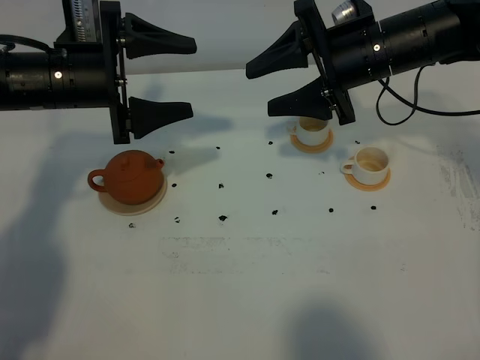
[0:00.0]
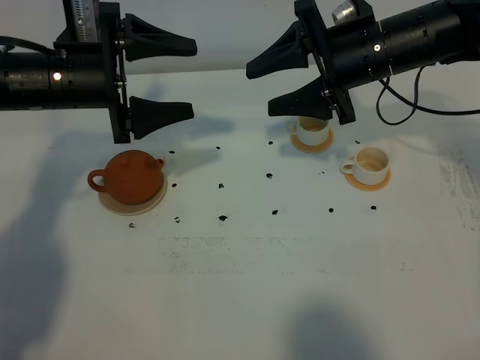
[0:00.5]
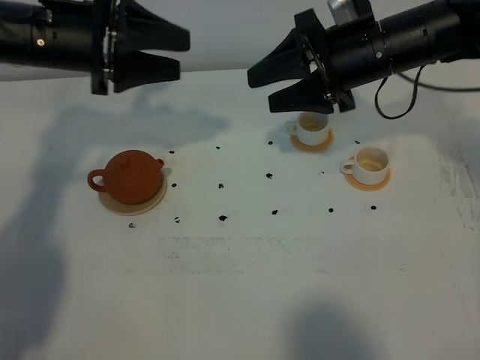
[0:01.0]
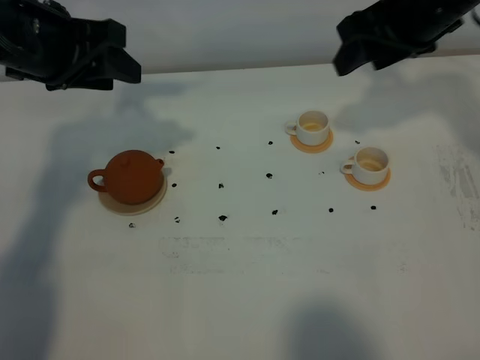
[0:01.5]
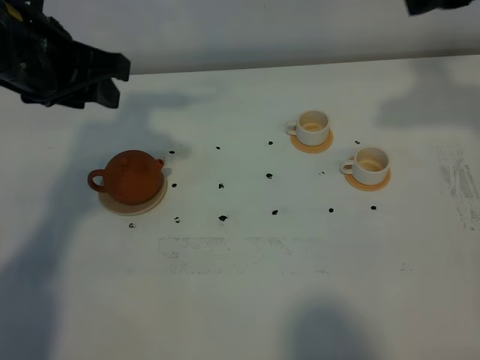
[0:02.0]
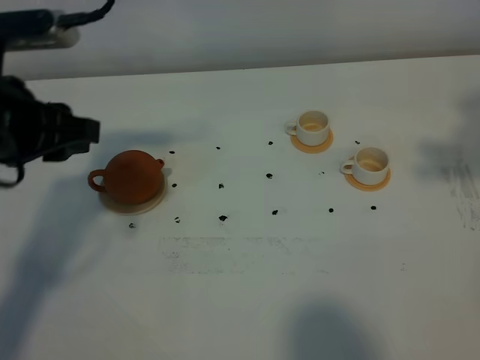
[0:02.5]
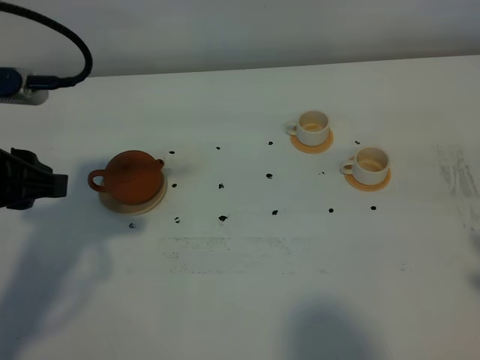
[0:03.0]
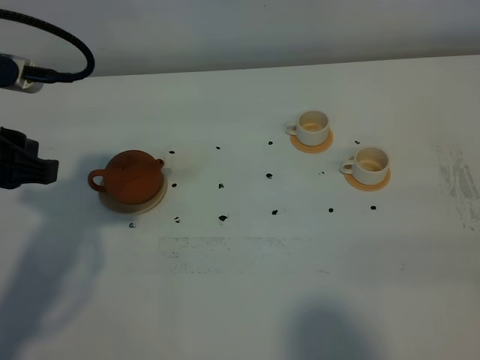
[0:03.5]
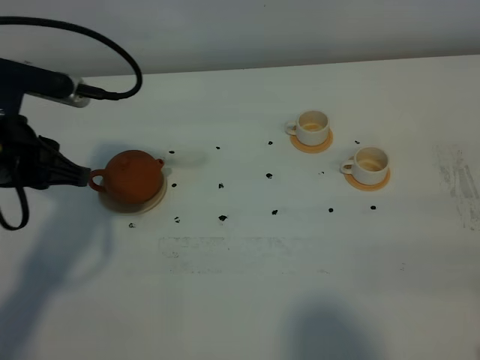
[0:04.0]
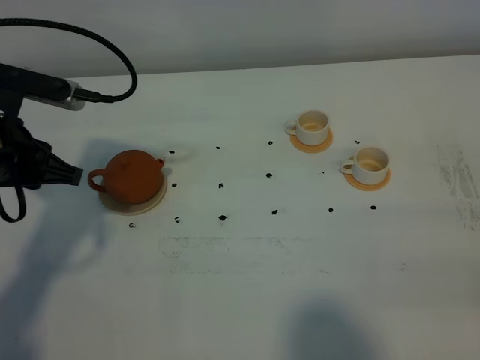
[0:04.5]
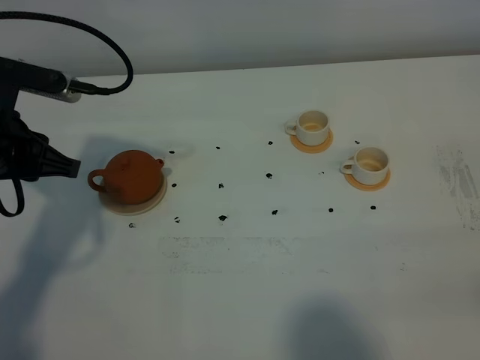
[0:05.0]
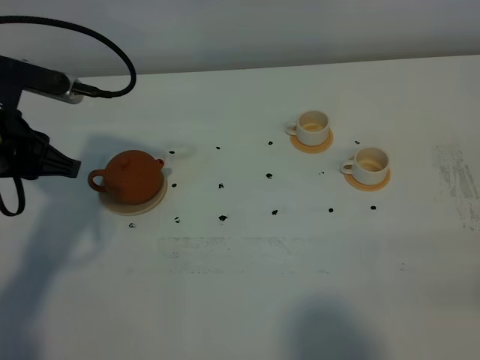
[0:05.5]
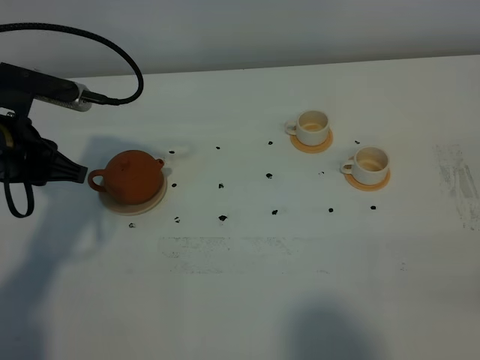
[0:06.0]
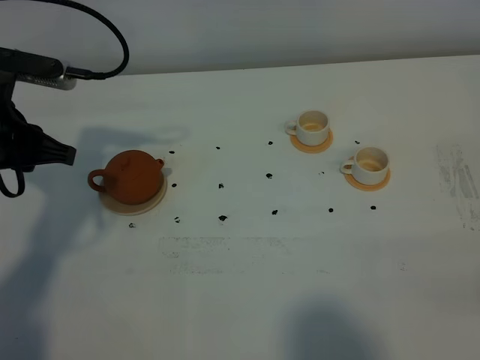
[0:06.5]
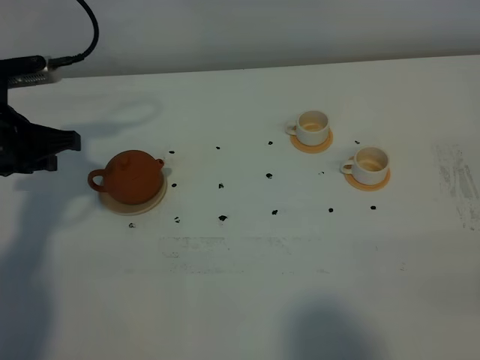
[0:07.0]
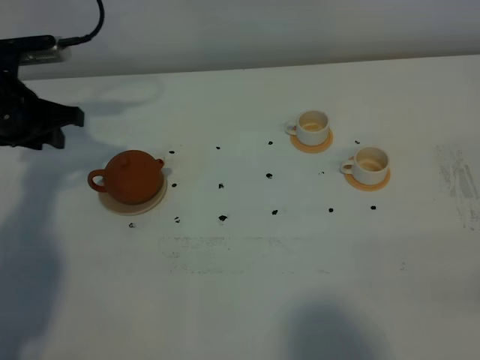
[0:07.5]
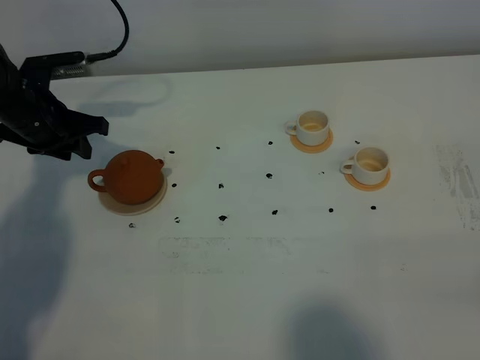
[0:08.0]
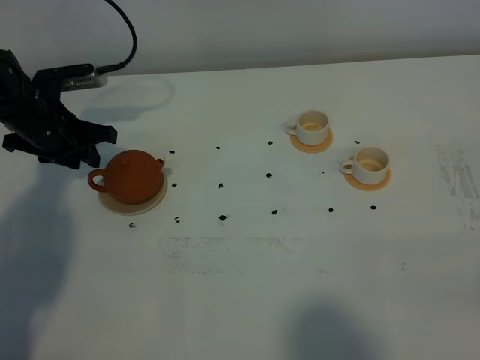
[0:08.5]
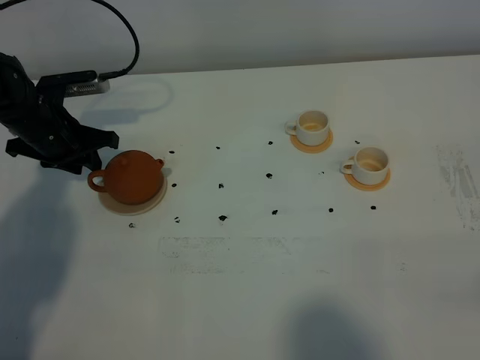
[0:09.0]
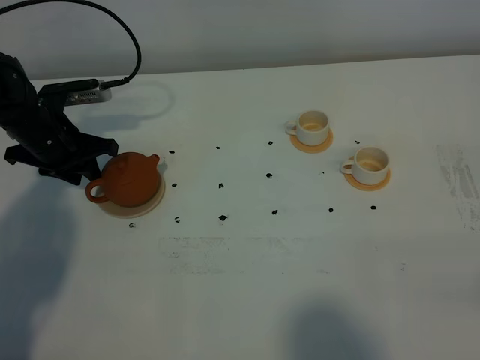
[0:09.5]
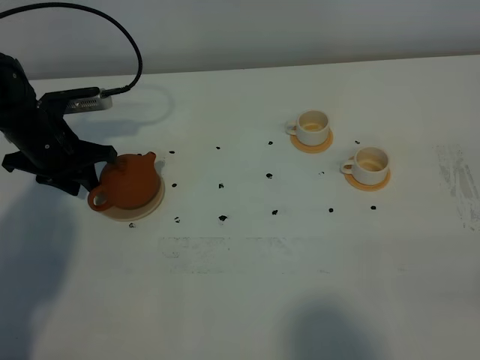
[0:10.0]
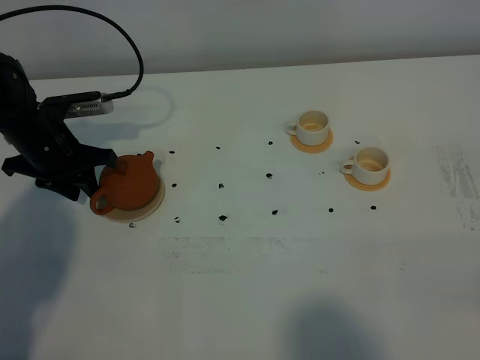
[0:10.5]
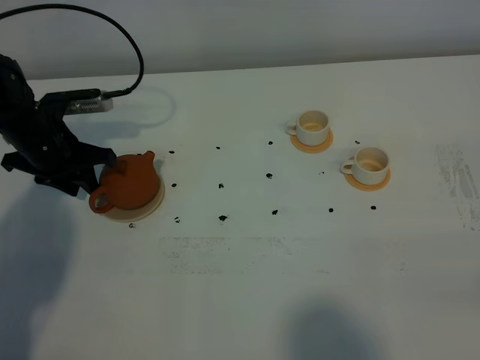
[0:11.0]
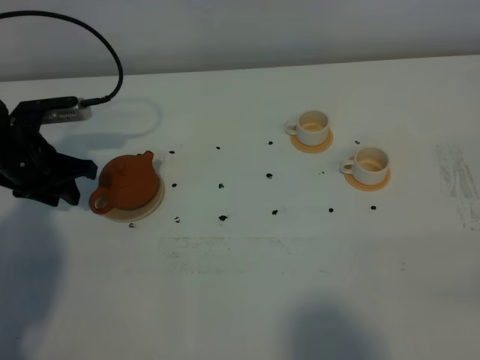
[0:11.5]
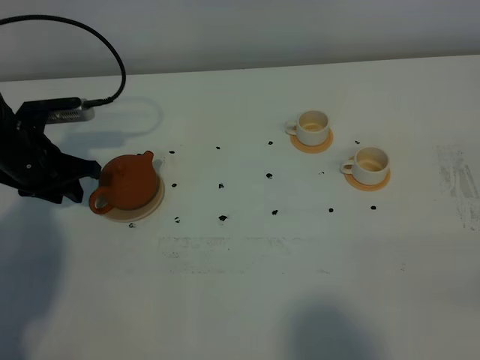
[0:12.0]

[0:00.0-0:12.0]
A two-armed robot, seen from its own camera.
Task of the whole recording: grasp the brown teapot and pour the tea into the two white teacups one by one, put the brown teapot back in its original place.
0.0 to 2.0 s: The right gripper goes some 20 cm upward, to the right and backward, while the left gripper moves upward, approximately 10 cm.
2.0 to 4.0 s: The left gripper is displaced downward and backward by approximately 10 cm. Meanwhile the right gripper is displaced backward and downward by approximately 30 cm.
6.0 to 8.0 s: The left gripper shifts about 15 cm forward and downward.
8.0 to 12.0 s: The grippers make only small movements.

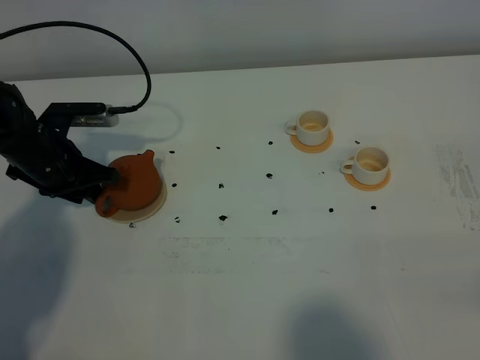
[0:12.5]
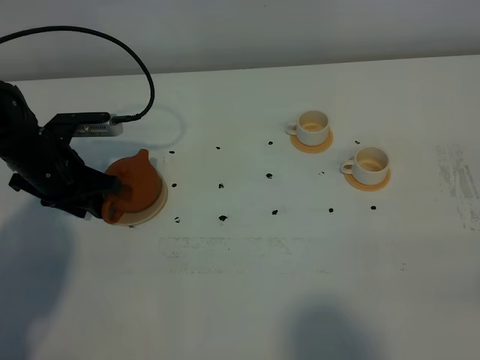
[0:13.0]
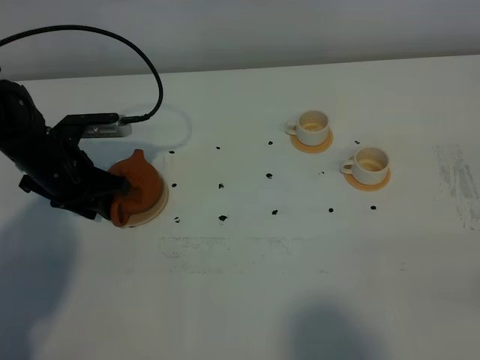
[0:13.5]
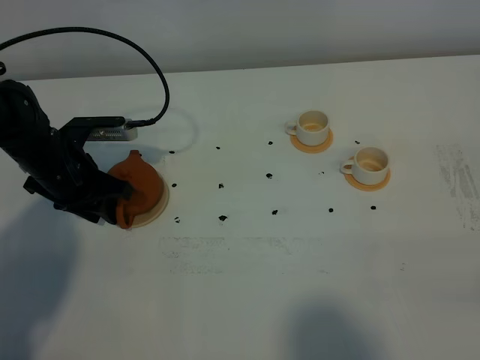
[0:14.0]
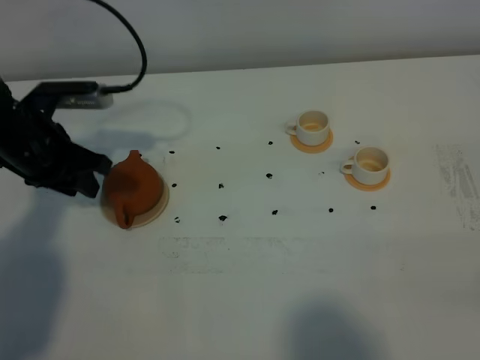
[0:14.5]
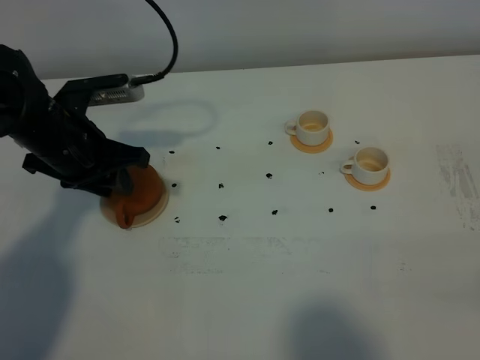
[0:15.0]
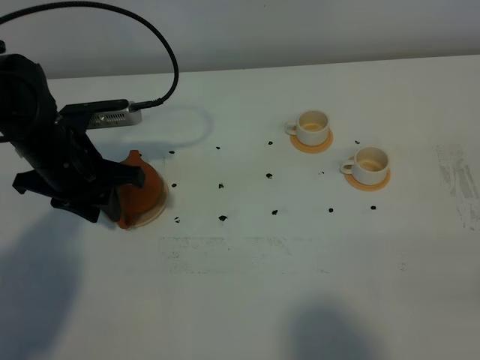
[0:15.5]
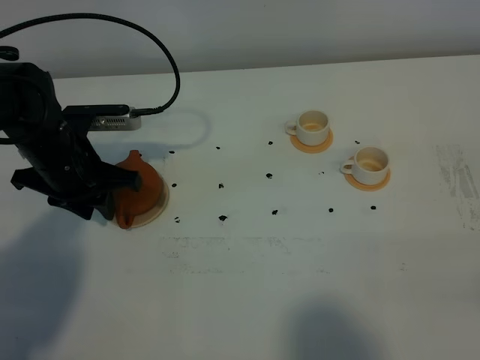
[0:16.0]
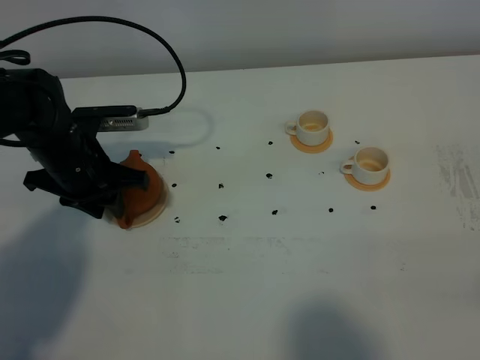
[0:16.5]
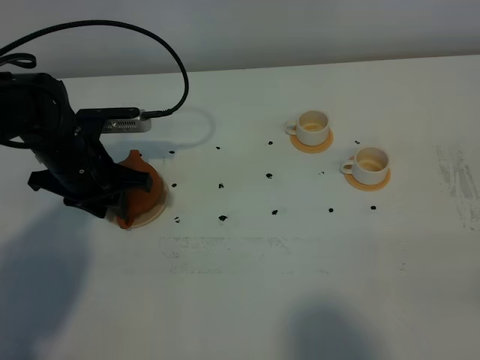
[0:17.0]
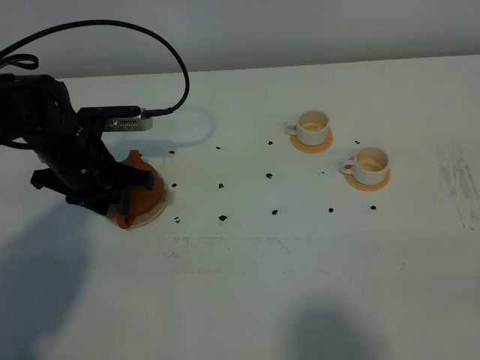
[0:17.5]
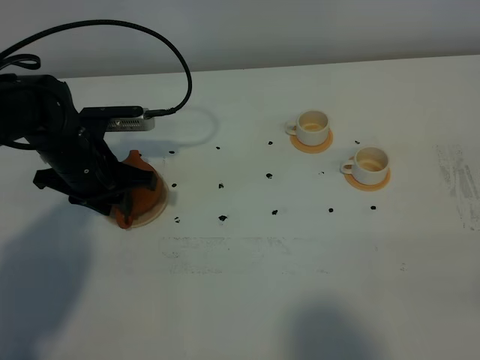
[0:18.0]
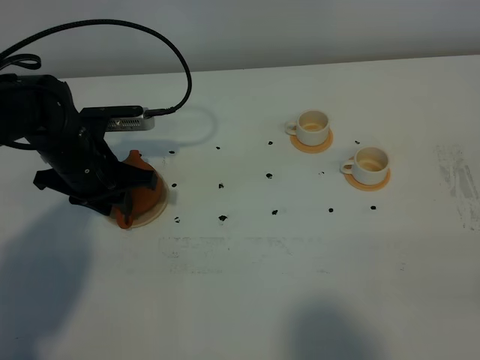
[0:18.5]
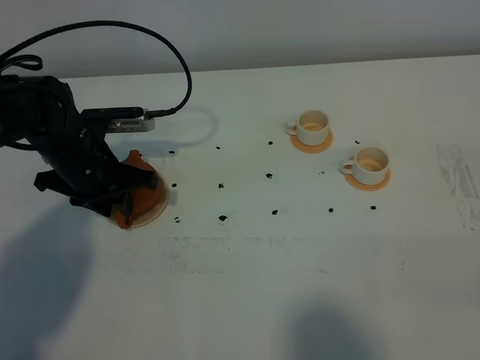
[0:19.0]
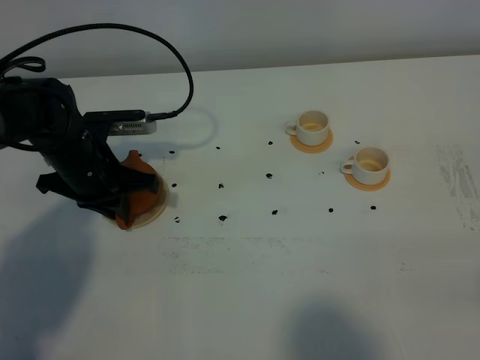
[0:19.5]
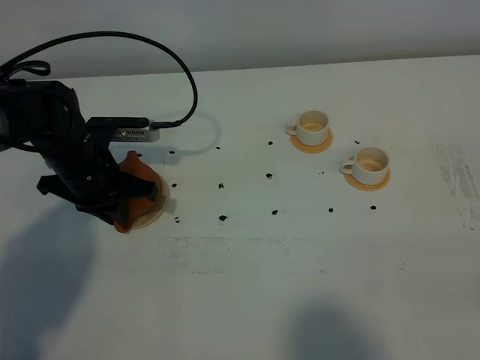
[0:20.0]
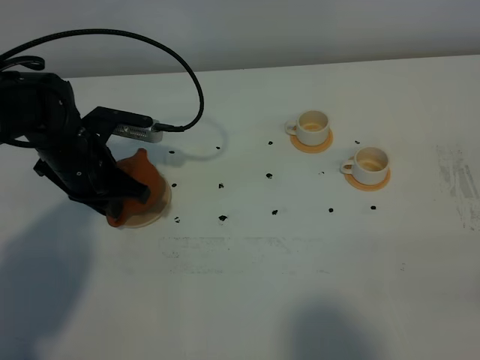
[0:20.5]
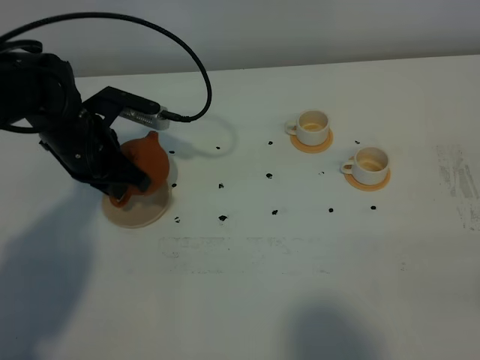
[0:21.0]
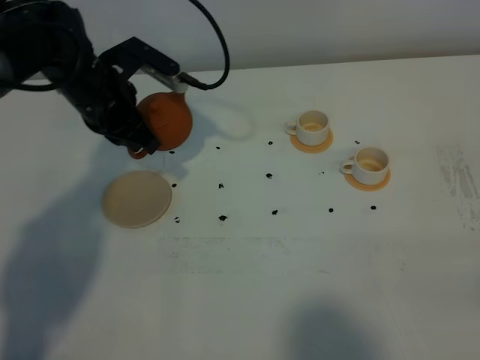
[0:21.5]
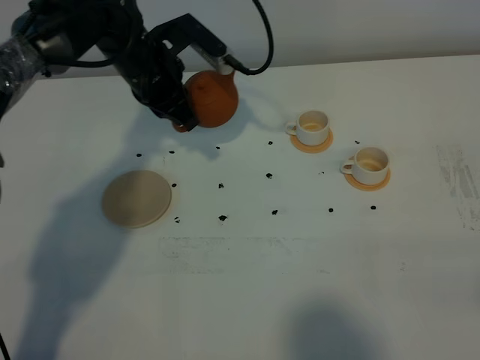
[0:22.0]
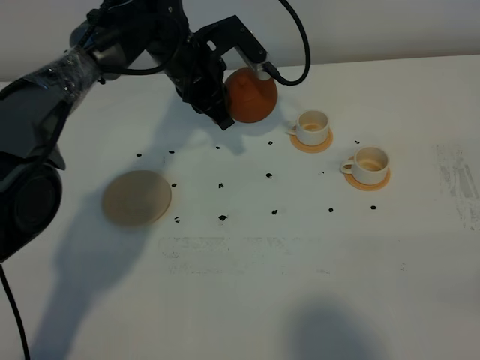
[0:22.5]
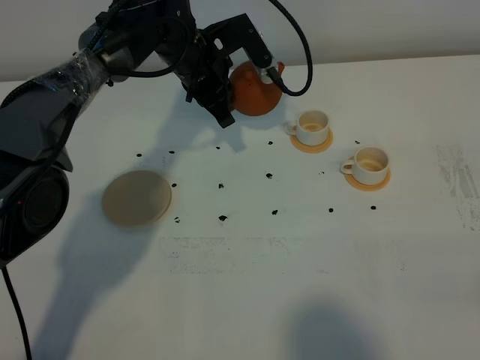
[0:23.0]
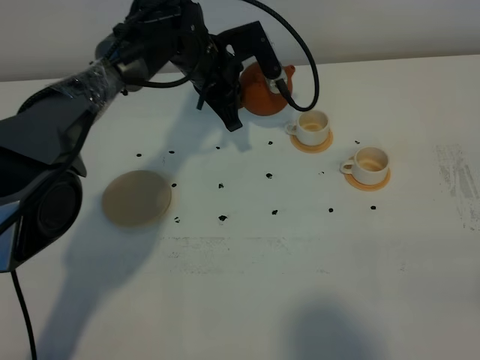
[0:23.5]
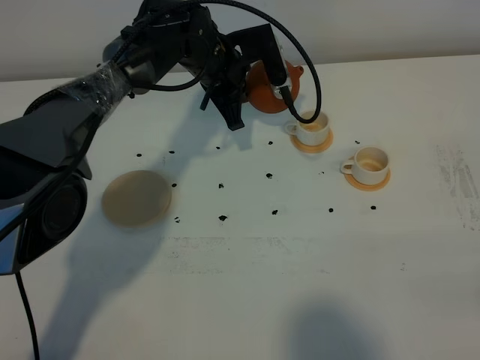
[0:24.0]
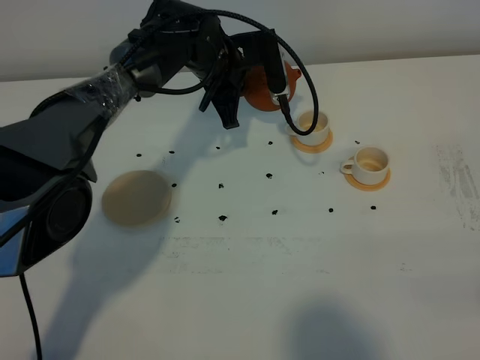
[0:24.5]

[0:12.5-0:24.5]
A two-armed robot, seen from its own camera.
Task of the whole recording: grasp the brown teapot and pour the tea into the two white teacups one by one, put the brown teapot back in its original place.
Step, 12.5 to 21.0 s: Pick up the teapot with the left gripper.
12.5 to 14.5 s: The left gripper heads upward, covering some 5 cm.
14.5 to 16.5 s: The left gripper moves roughly 5 cm.
16.5 to 18.5 s: The two grippers keep their place.
18.5 to 20.5 s: The left gripper closes up.
20.5 to 22.5 s: The left gripper travels to the right and forward by some 20 cm.

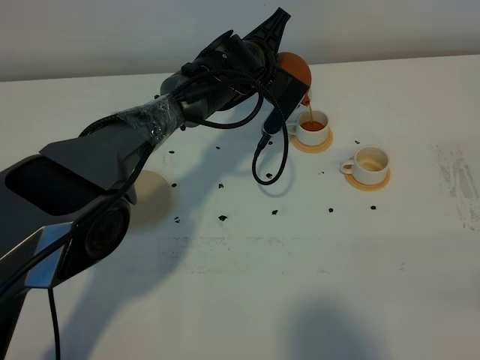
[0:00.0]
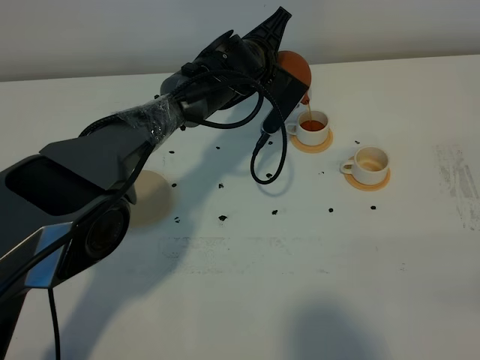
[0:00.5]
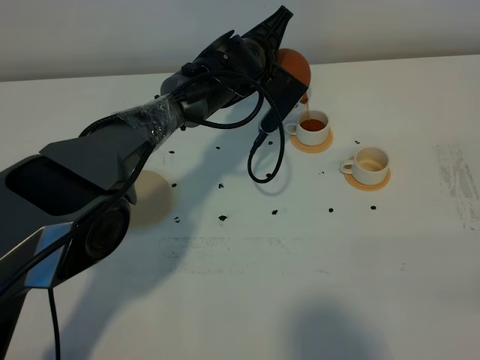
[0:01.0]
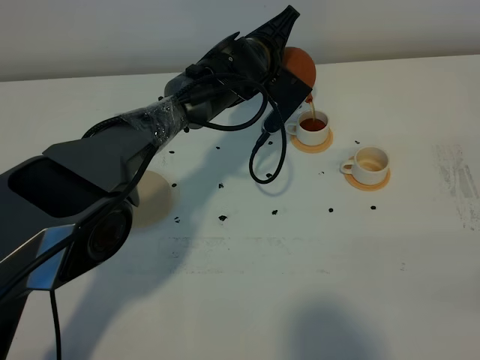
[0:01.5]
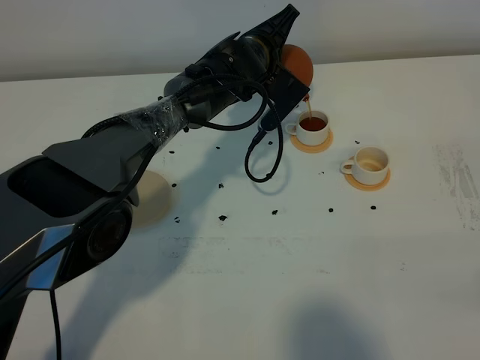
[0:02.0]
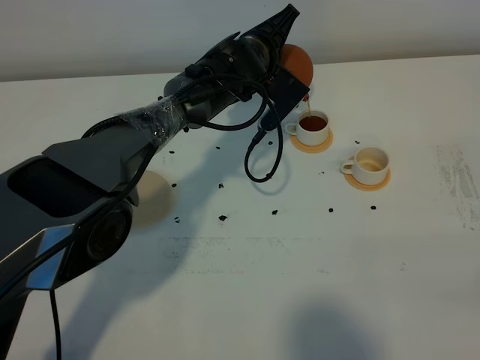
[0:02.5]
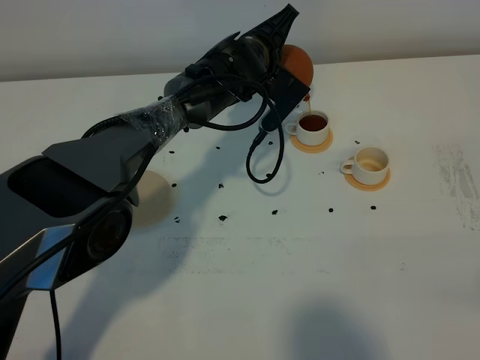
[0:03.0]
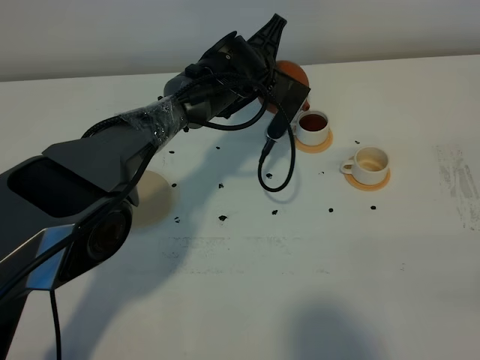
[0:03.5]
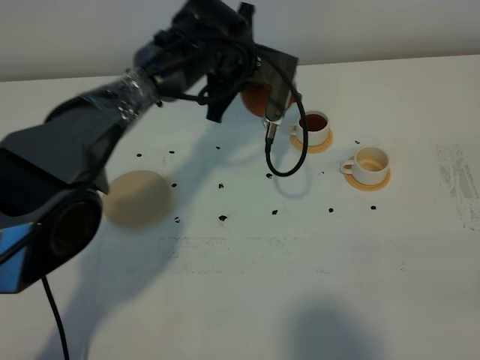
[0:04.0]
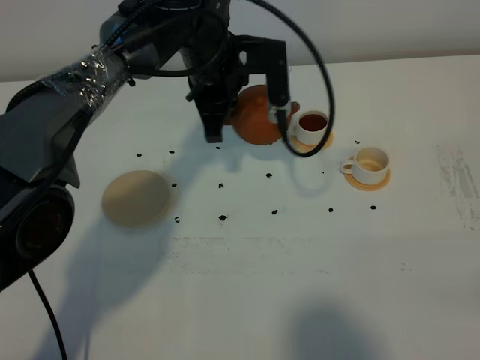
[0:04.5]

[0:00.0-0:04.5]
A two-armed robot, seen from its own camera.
Task of the whole recording: grasp the brown teapot and pour the tea into the two white teacups one by one, put the brown teapot back in its original place.
0.0 to 2.0 s: The grippers make only small movements.
2.0 to 4.5 s: The left gripper heads upward and backward, covering roughly 10 cm.
